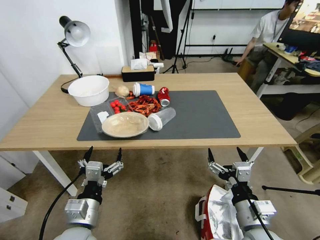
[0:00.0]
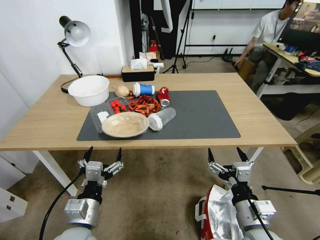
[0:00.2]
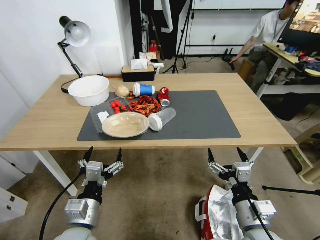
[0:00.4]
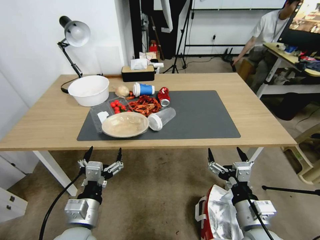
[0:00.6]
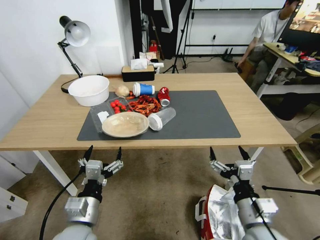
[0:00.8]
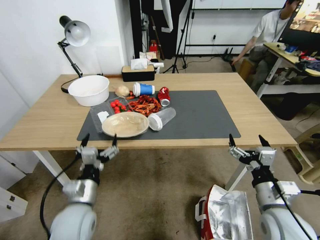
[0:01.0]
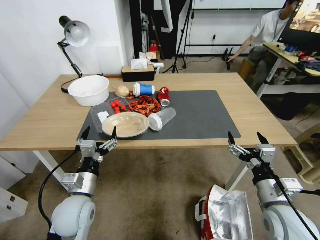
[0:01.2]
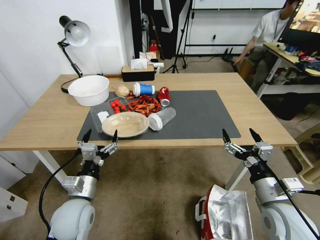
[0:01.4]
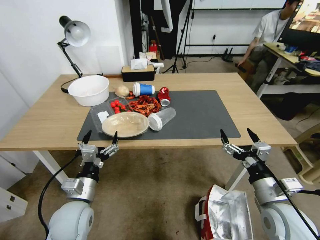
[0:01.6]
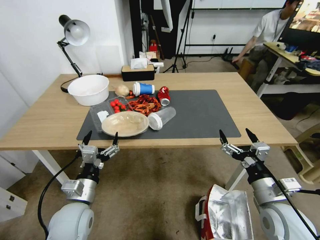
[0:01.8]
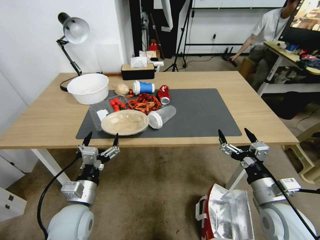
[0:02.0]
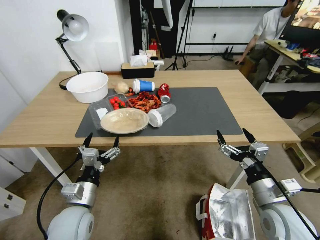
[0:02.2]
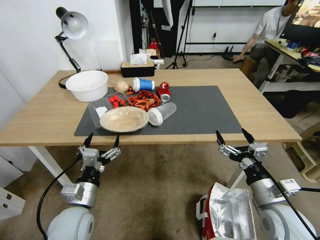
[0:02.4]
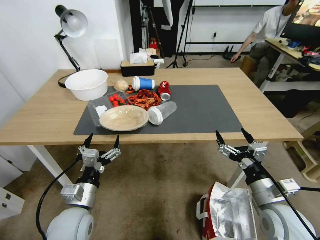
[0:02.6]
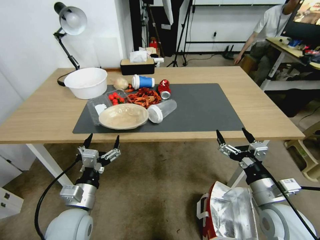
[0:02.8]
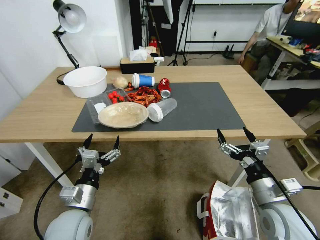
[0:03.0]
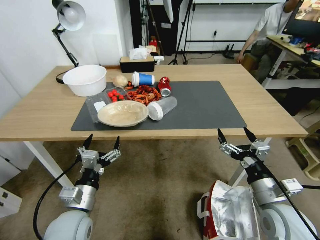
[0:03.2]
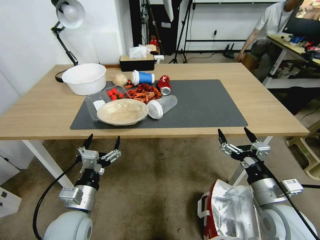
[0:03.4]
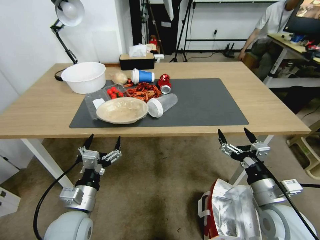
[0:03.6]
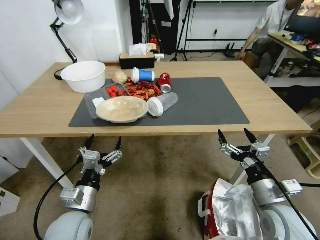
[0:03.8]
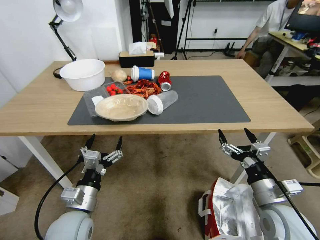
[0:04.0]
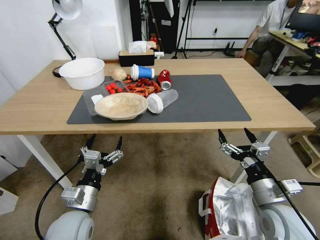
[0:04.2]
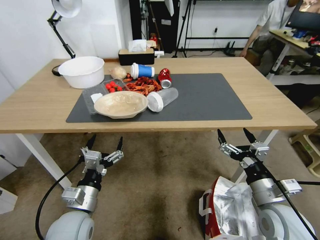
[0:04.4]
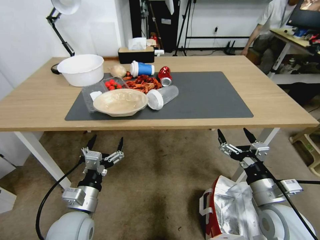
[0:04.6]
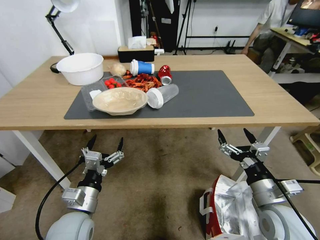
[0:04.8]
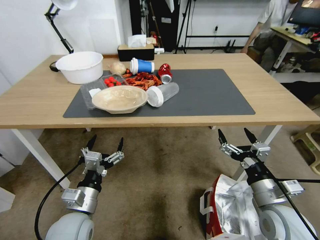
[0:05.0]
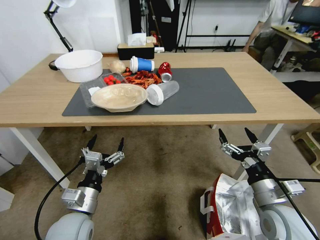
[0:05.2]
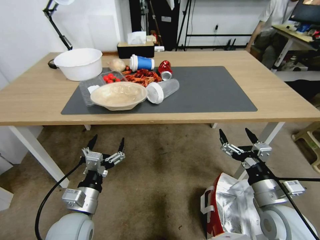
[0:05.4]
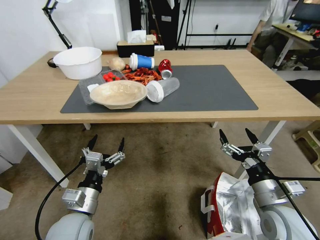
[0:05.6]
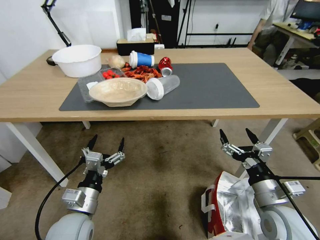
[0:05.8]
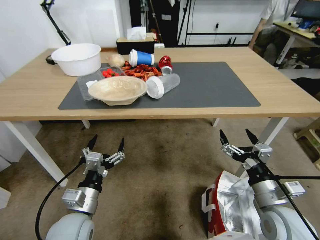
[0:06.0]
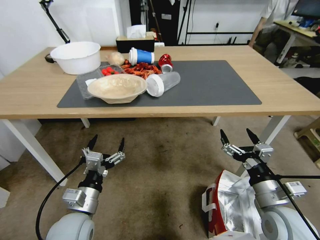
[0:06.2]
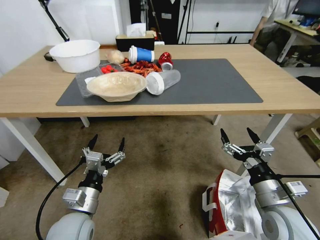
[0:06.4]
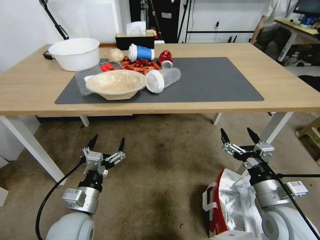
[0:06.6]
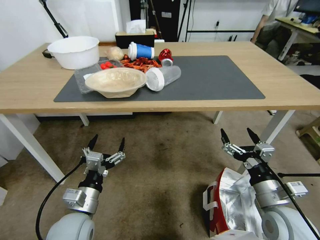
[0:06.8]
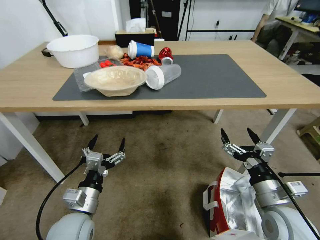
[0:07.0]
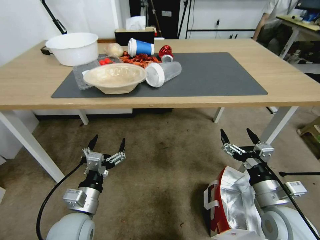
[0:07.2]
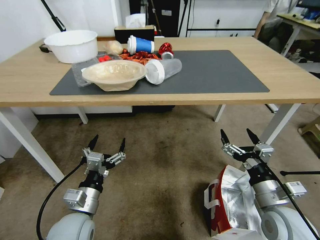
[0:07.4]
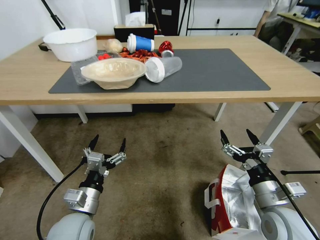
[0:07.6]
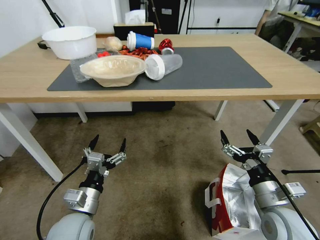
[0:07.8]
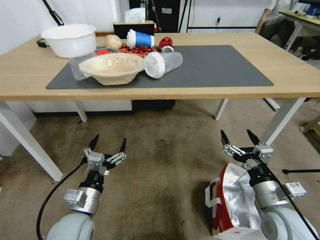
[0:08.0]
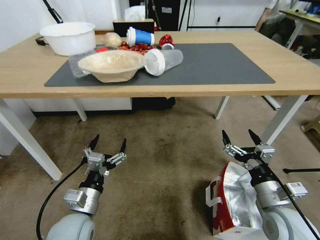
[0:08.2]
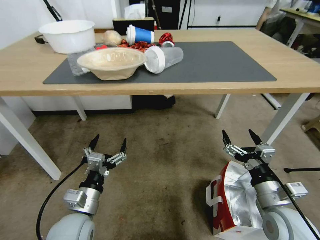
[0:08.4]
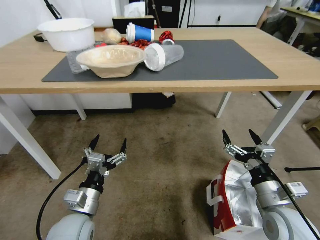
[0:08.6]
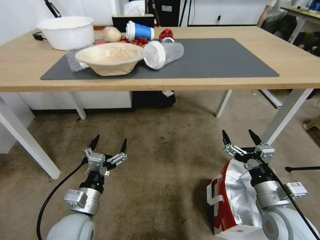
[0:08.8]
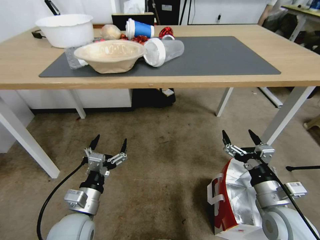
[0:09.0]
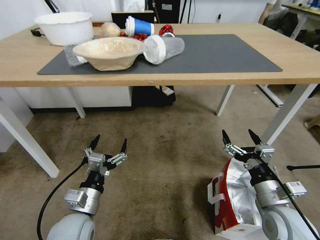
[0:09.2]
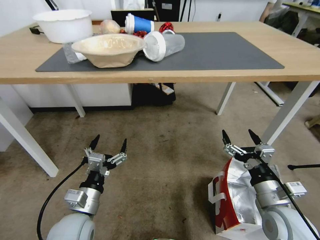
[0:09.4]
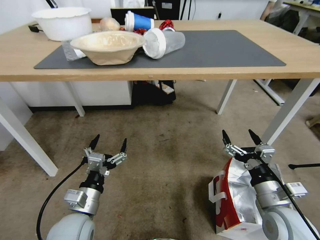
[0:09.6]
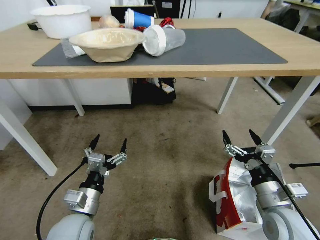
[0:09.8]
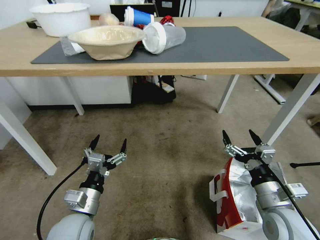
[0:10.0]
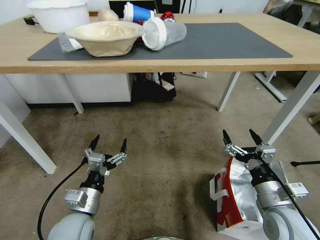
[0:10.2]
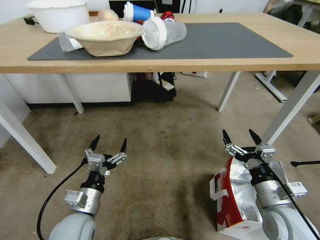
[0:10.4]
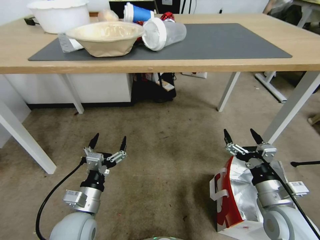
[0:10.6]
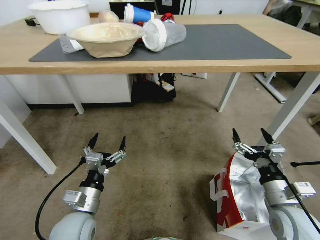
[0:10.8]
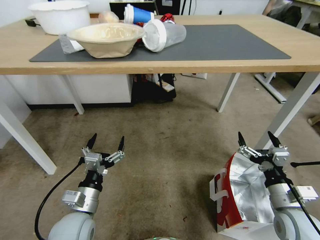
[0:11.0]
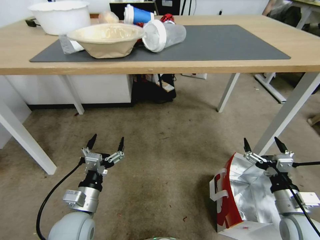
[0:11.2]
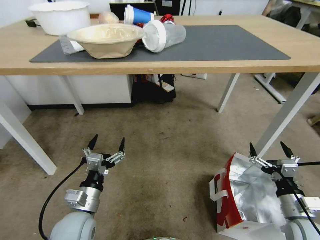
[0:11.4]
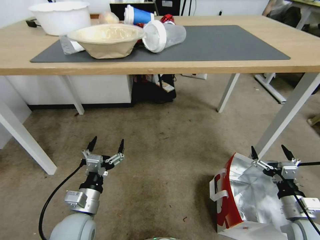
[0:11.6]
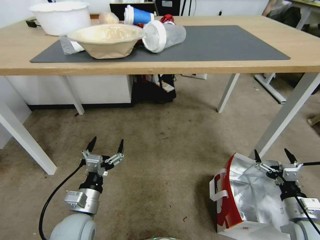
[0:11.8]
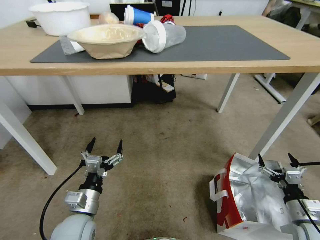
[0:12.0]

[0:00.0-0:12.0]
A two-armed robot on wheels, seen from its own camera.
Task of the whole recording: Pick up the food delivery bag from the floor and place it on the table.
0:10.4 to 0:12.0: The right gripper travels to the right and downward by approximately 15 cm.

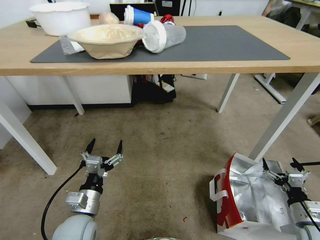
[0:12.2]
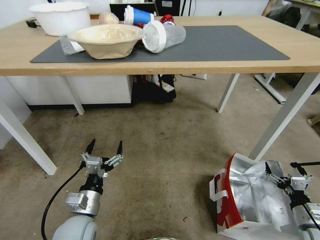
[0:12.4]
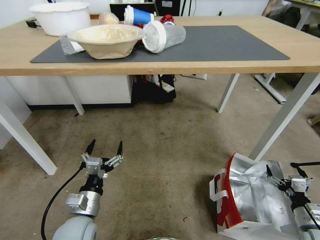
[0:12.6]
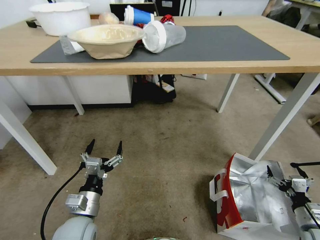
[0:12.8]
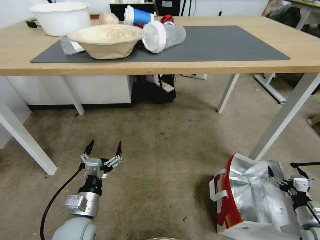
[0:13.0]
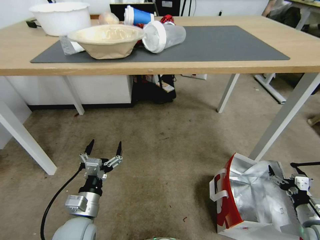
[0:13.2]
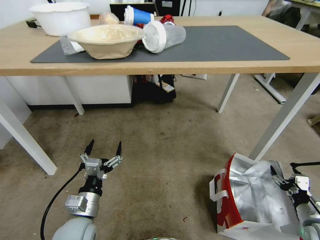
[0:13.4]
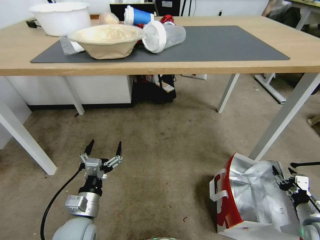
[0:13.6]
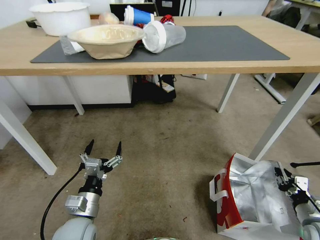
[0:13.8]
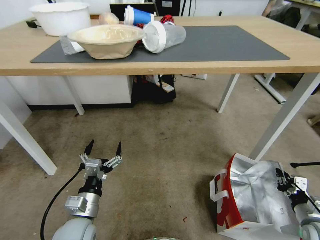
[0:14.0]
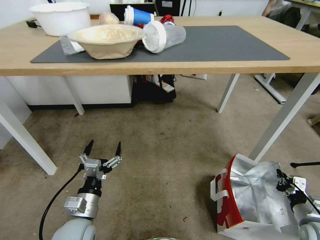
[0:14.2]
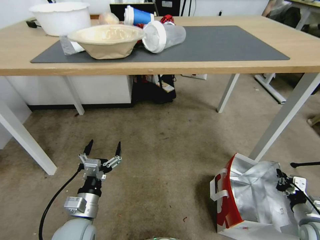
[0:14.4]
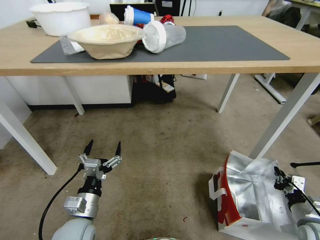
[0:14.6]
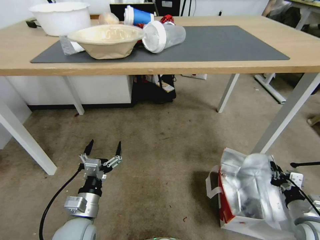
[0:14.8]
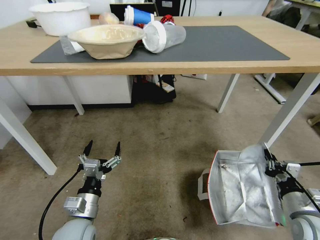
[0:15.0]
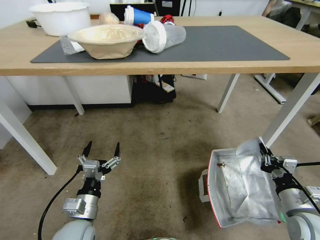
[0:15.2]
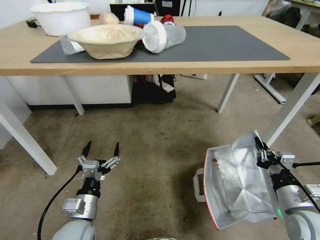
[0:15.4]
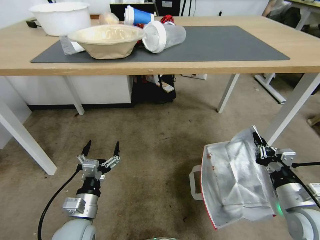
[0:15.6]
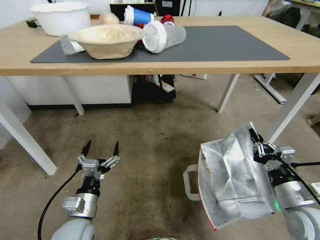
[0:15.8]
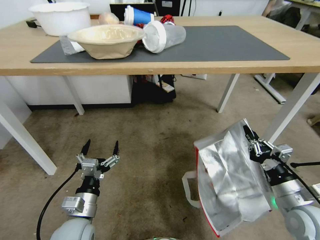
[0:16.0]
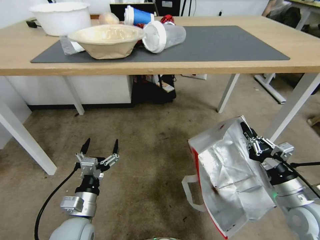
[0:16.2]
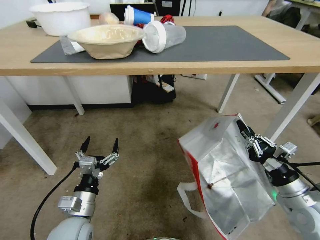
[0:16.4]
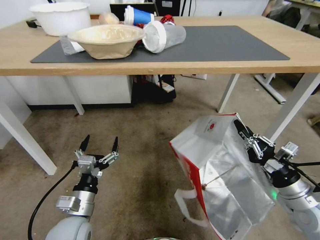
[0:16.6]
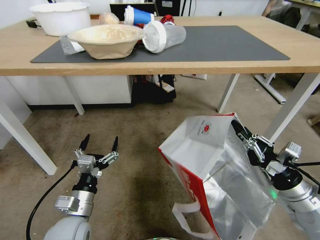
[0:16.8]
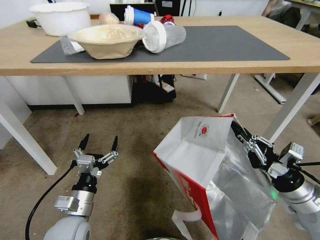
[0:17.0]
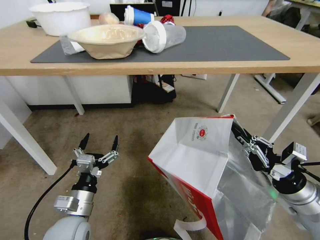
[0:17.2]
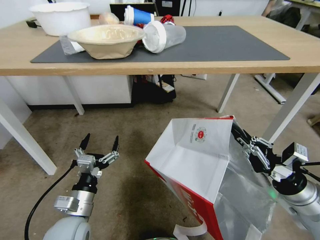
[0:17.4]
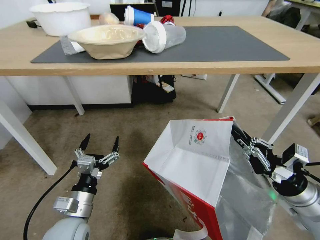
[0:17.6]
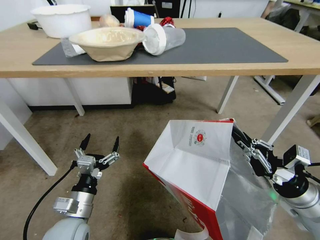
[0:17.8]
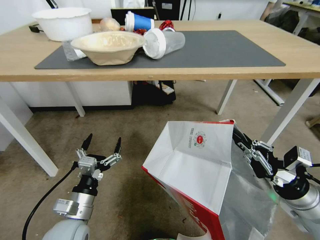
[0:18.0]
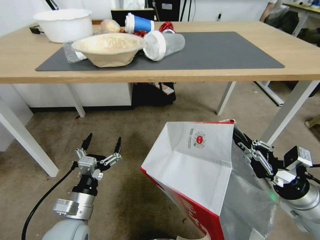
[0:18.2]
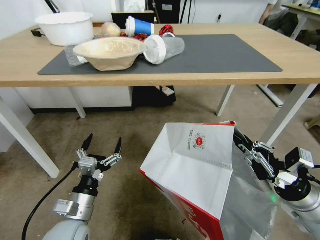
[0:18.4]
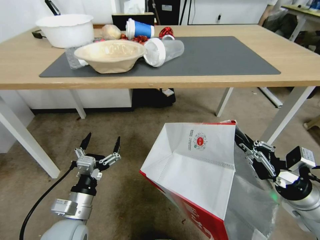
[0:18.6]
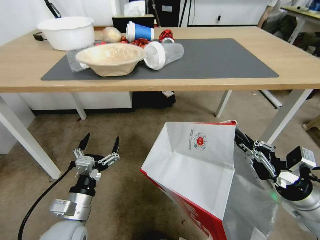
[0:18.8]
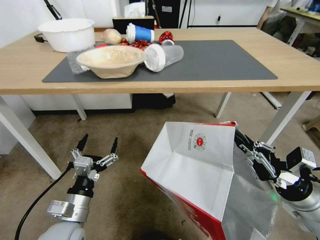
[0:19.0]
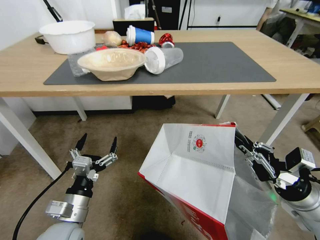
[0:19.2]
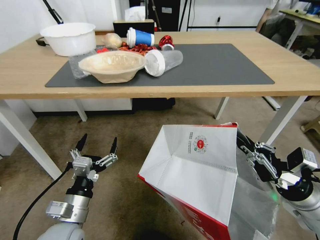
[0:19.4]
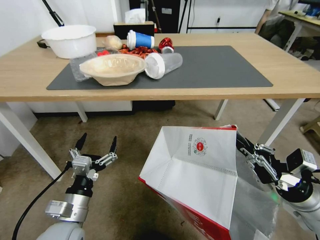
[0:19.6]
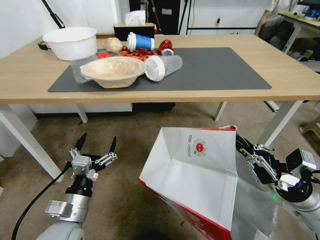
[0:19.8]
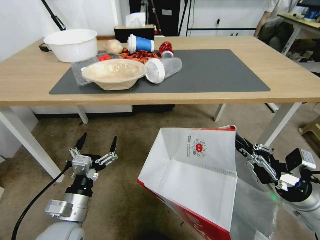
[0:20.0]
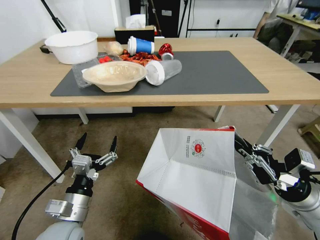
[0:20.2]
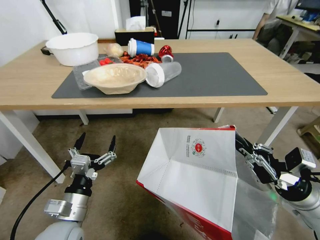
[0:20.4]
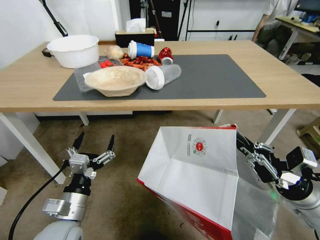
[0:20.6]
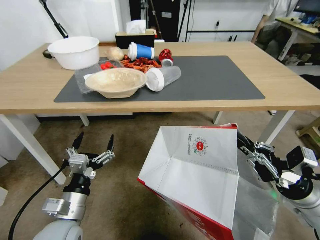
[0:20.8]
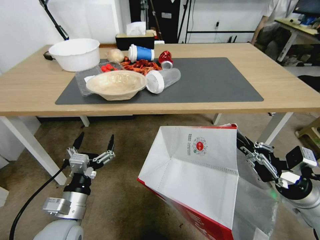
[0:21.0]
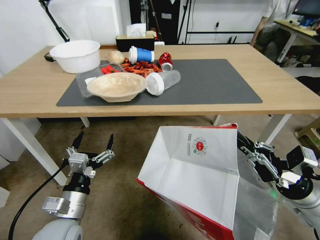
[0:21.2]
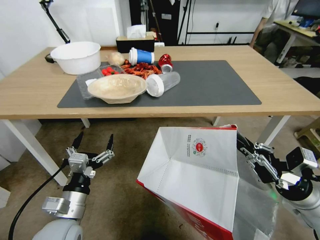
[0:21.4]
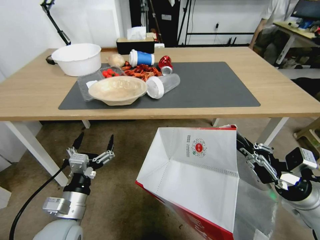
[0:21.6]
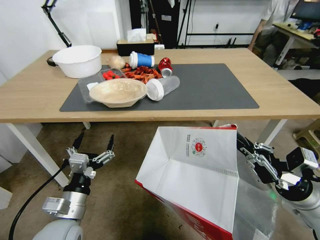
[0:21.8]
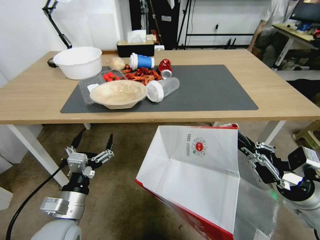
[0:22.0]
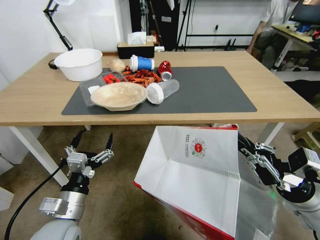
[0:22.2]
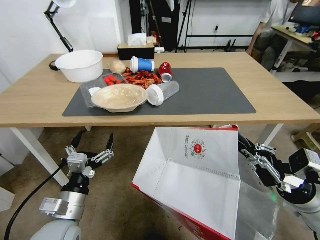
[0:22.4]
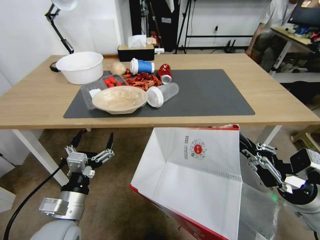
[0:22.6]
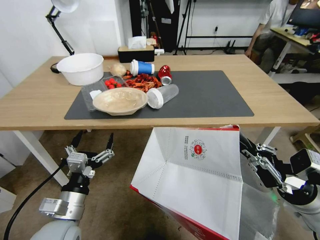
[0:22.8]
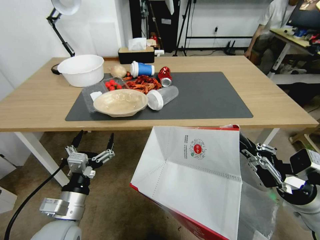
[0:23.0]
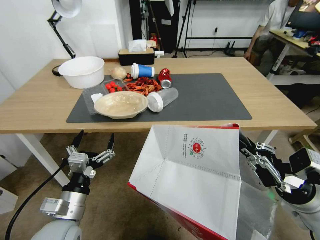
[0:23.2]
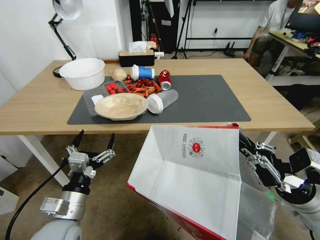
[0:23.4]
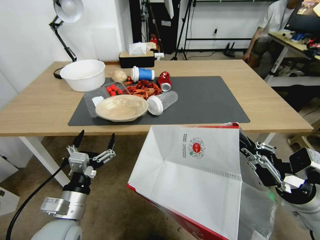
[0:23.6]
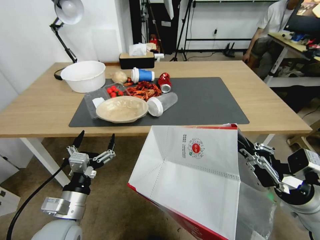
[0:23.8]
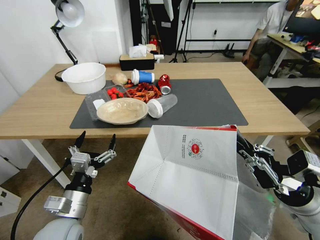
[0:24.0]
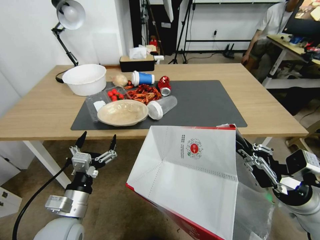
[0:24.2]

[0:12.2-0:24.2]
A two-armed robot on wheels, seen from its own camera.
Task of the whole recording: Pick up the food delivery bag from the floor and place it on the table.
0:12.2 to 0:13.8: The right gripper closes its fingers.
0:13.8 to 0:15.2: The right gripper travels to the left and upward by approximately 10 cm.
0:15.2 to 0:16.6: The right gripper shifts approximately 5 cm upward.
